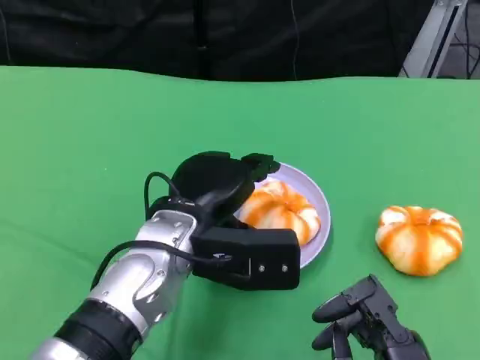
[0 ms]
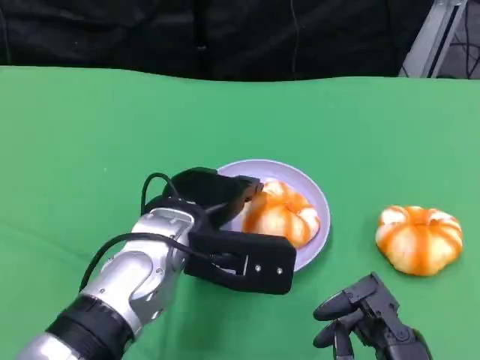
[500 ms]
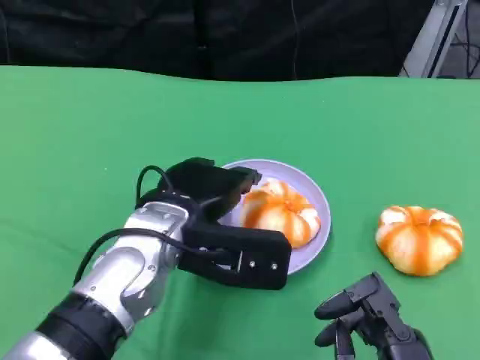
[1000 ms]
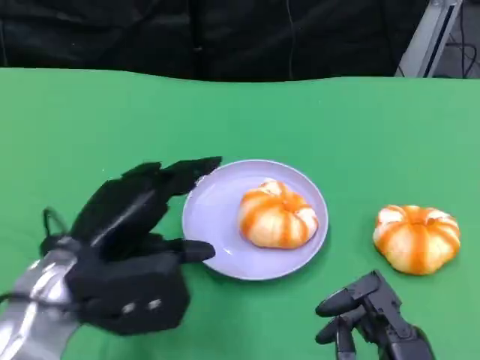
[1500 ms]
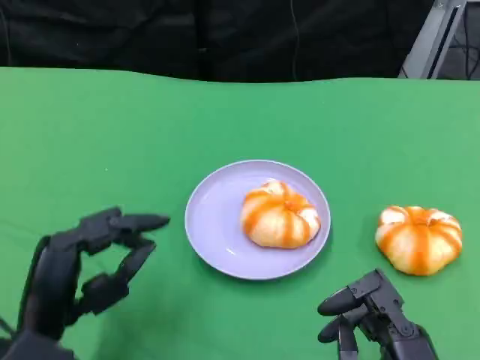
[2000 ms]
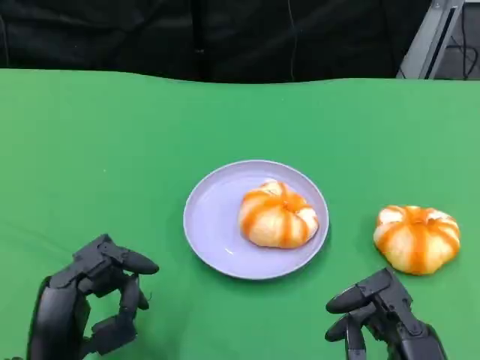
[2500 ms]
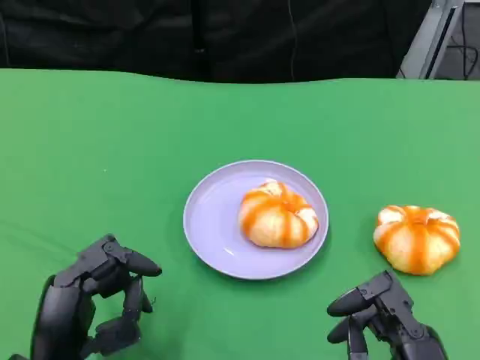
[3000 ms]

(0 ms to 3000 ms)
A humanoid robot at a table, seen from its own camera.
Task of the whole recording: Grasp the bread from the table and place it into the plate.
0 ms - 1500 ms: The left hand is displaced to the left by some 10 cm.
1500 ms - 3000 ms: The left hand moves downward and backward, some 10 cm.

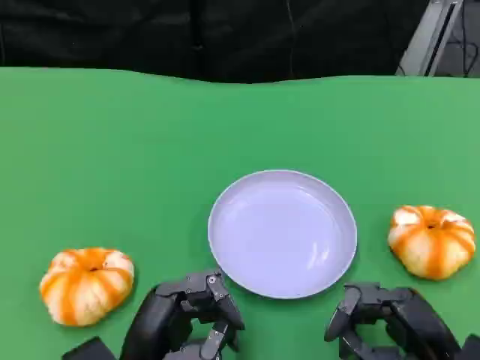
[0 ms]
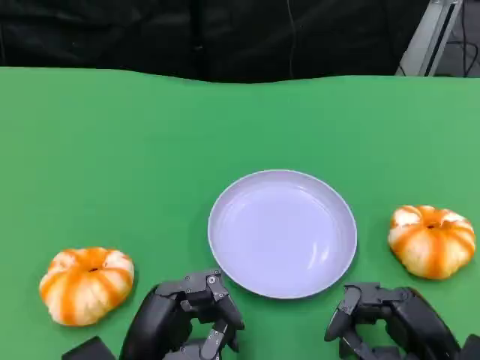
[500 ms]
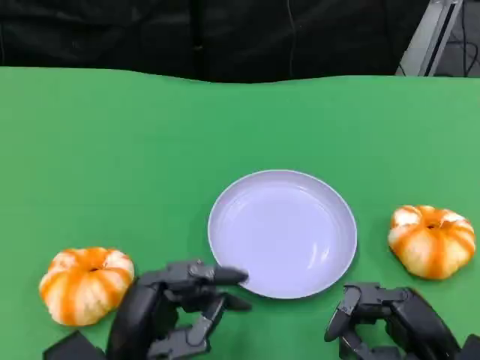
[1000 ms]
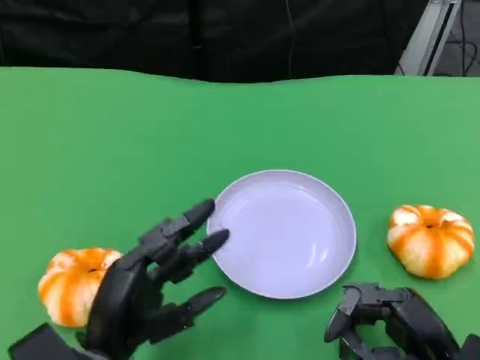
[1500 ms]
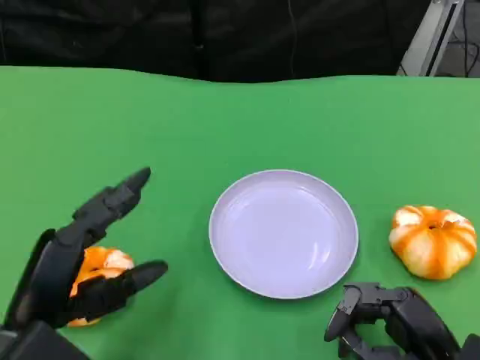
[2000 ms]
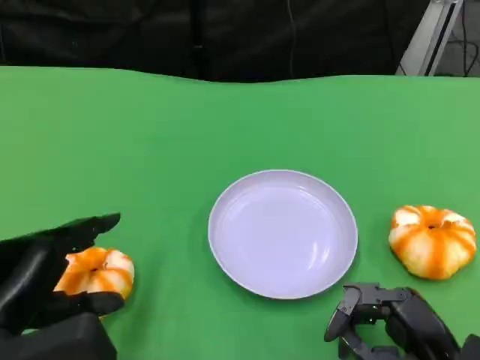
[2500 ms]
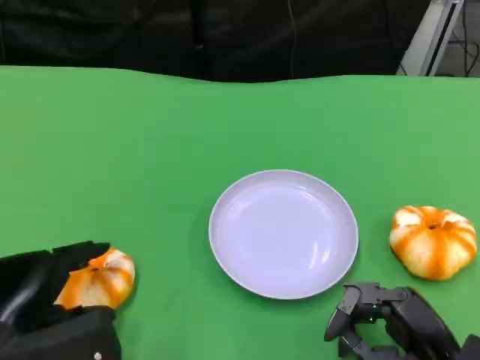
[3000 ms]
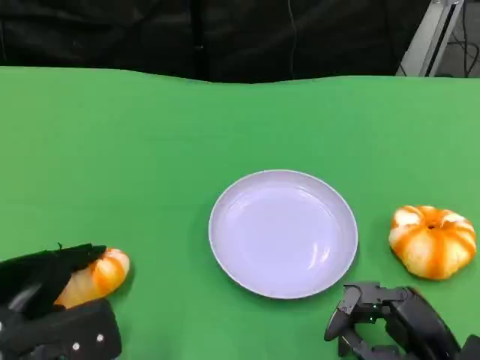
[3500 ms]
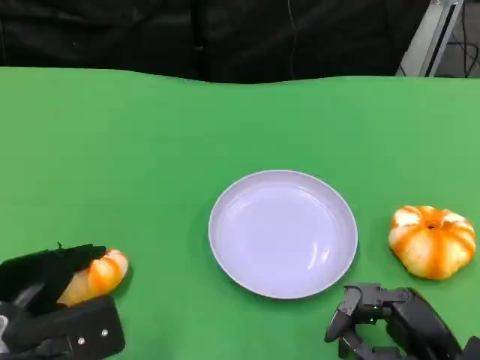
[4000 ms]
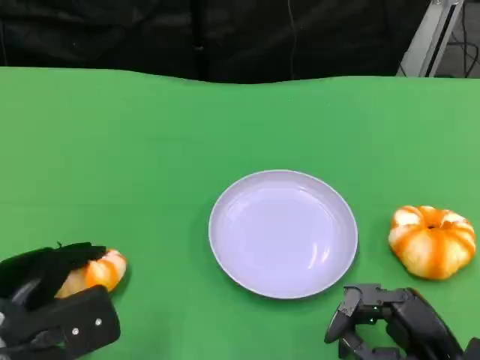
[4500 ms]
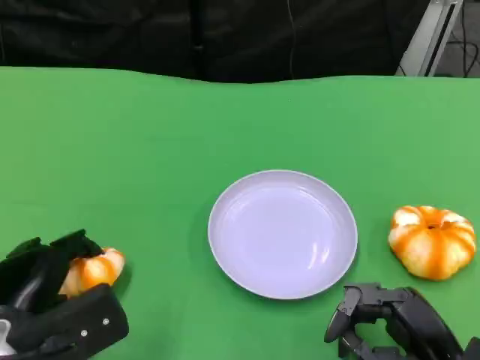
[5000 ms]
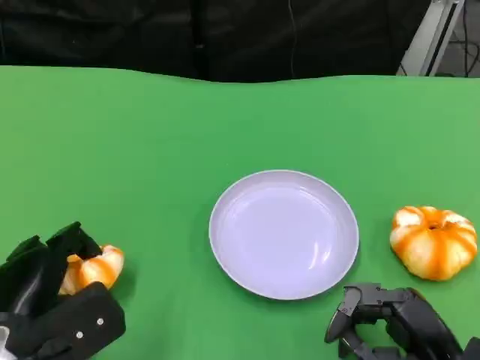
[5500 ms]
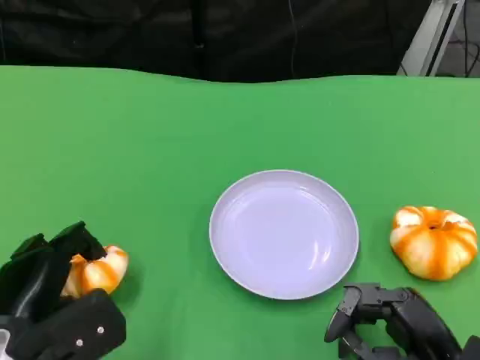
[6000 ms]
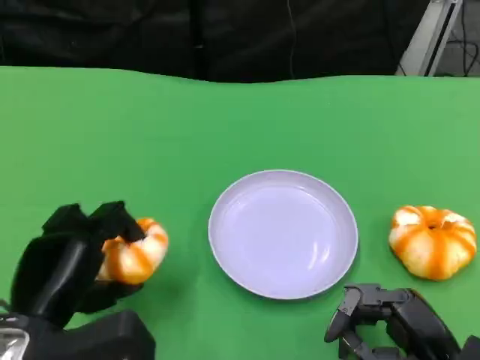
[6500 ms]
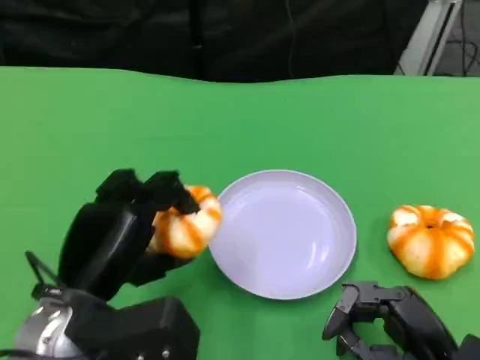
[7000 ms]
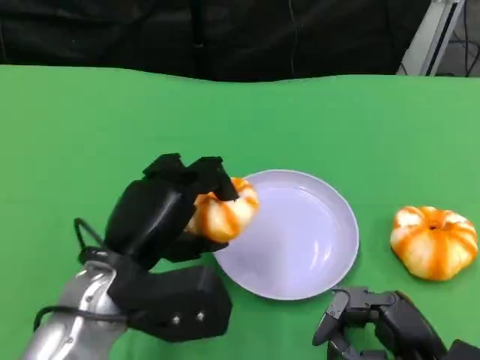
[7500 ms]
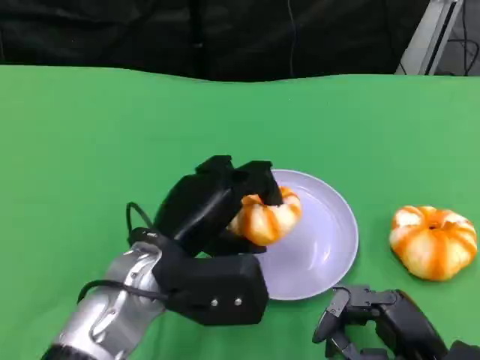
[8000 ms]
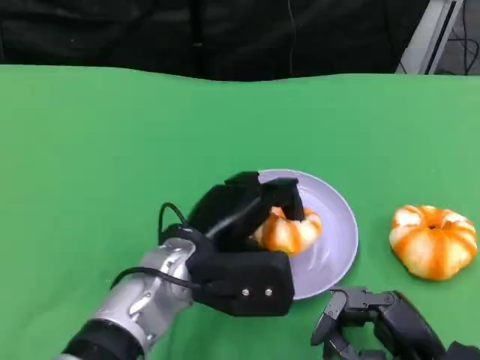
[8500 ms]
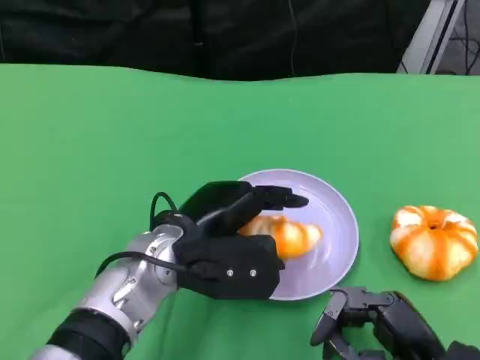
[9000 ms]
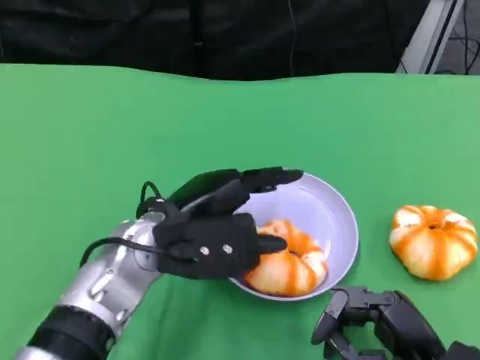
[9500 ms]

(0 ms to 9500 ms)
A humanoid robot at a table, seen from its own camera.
Task of the whole recording: Grasp the bread from the table and place it into the plate.
0 ms - 2000 ms: The left hand shifts approximately 10 cm to the left and upward.
2000 ms - 4000 ms: The left hand ends up about 5 cm from where it was.
4000 ms - 5500 ms: The hands move only a little.
5500 ms - 7500 ms: The left hand moves to the right and upward, about 10 cm.

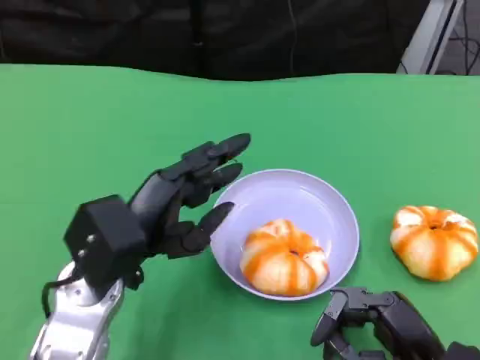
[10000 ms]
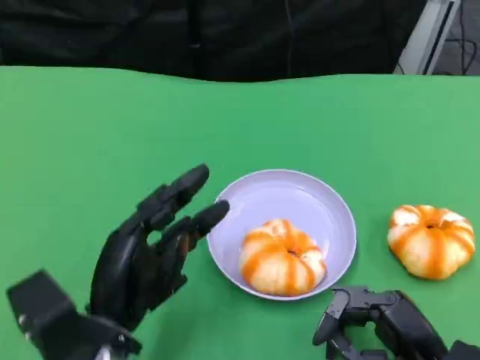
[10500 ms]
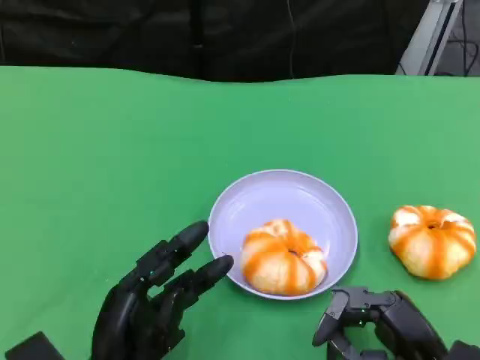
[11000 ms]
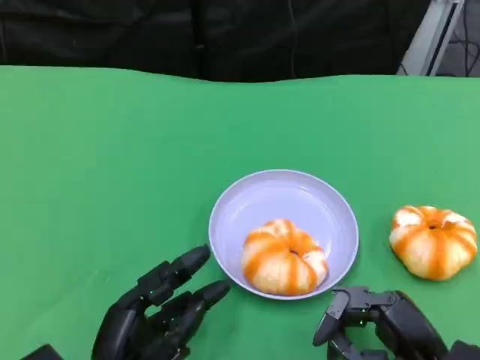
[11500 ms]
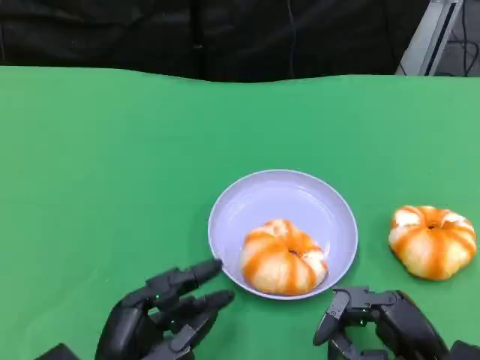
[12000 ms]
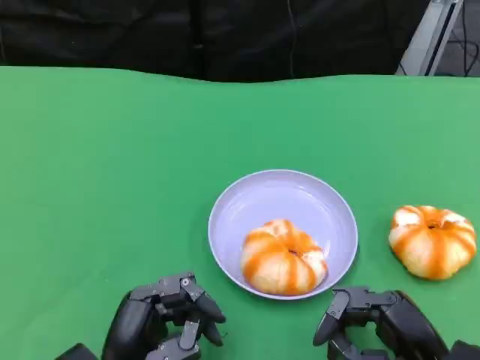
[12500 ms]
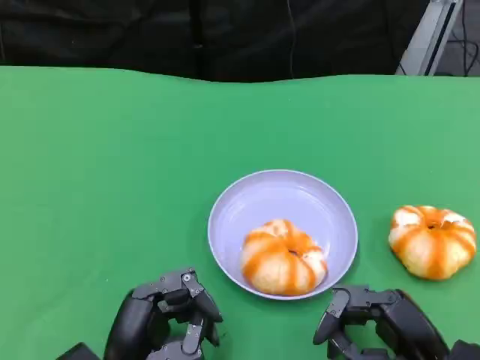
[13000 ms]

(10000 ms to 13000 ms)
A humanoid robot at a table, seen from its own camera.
Task of the whole recording: Grasp the bread from the table and place it into the plate.
10000 ms - 11500 ms: The left hand moves backward and downward, roughly 15 cm.
11500 ms - 13000 ms: The hands move only a little.

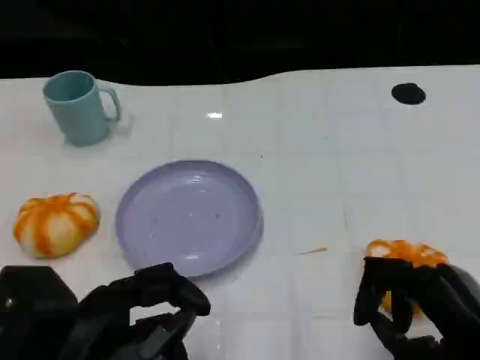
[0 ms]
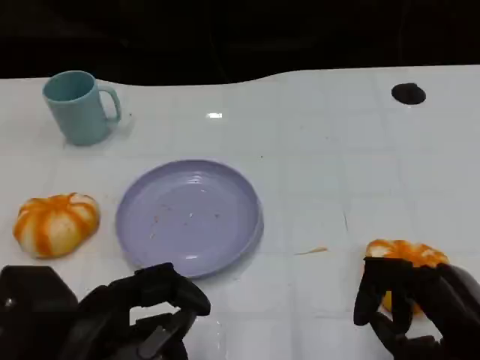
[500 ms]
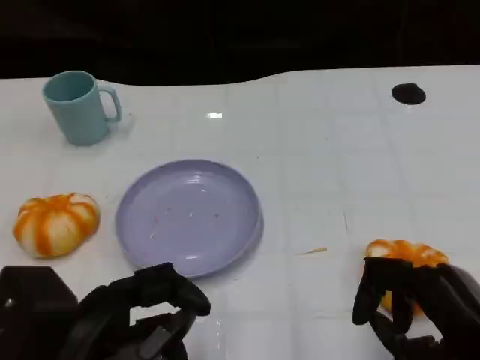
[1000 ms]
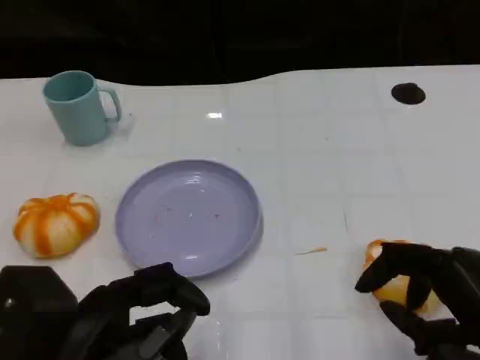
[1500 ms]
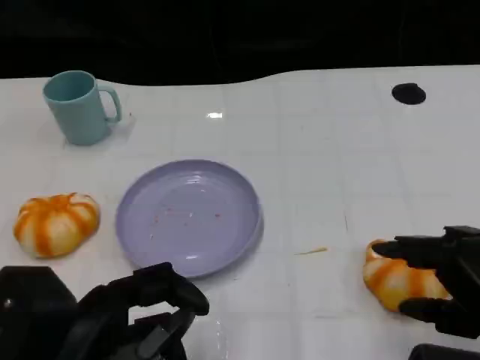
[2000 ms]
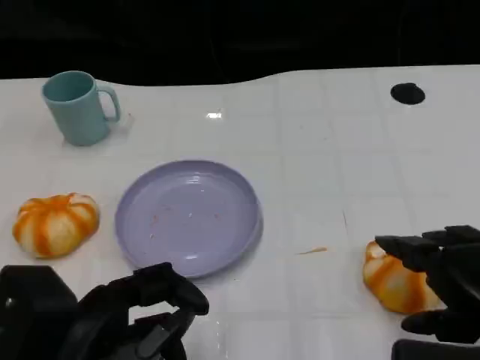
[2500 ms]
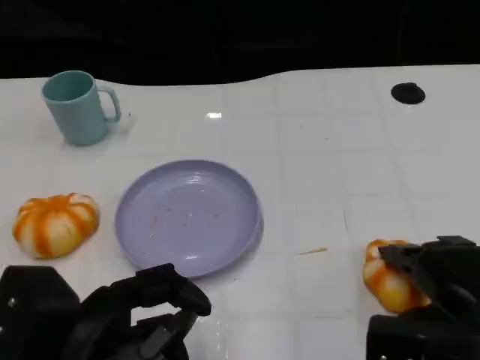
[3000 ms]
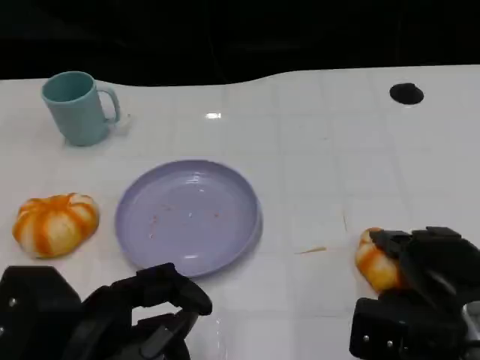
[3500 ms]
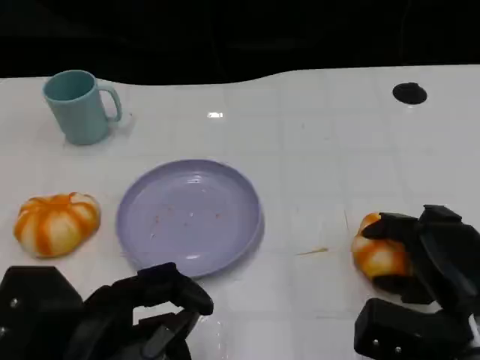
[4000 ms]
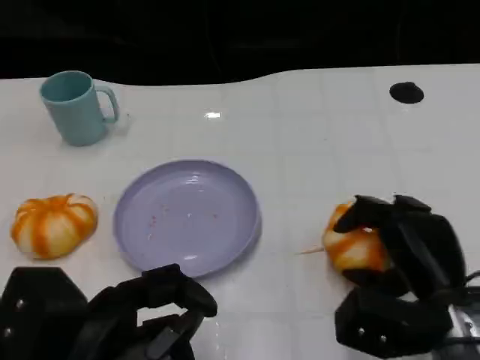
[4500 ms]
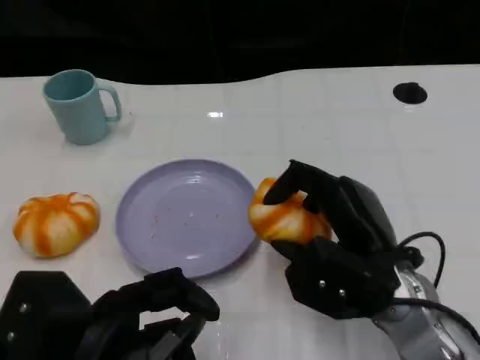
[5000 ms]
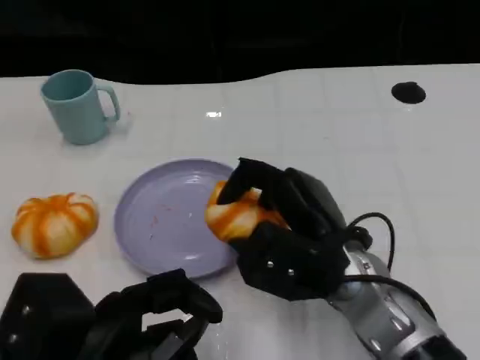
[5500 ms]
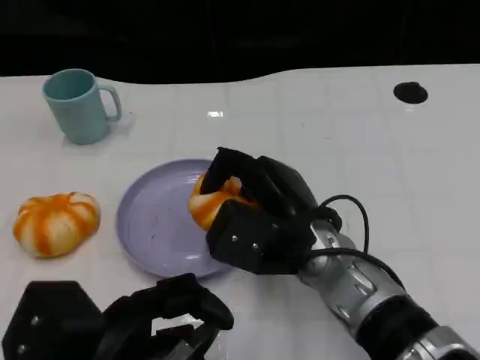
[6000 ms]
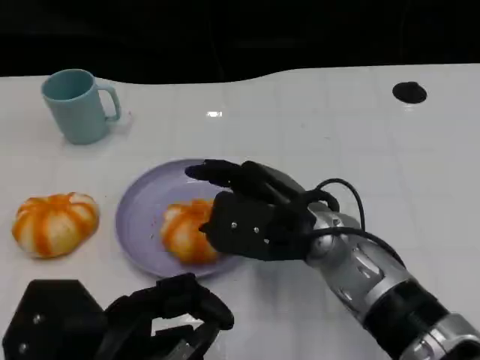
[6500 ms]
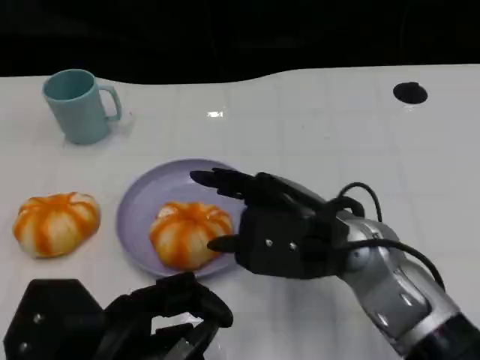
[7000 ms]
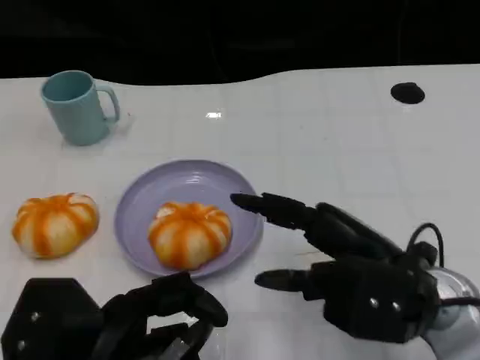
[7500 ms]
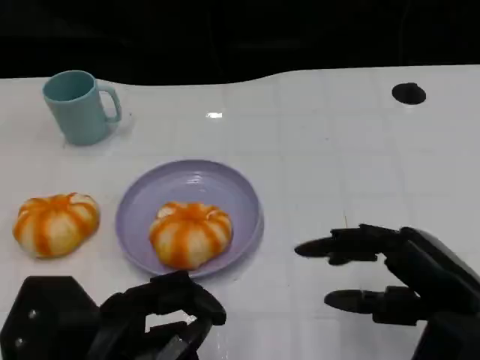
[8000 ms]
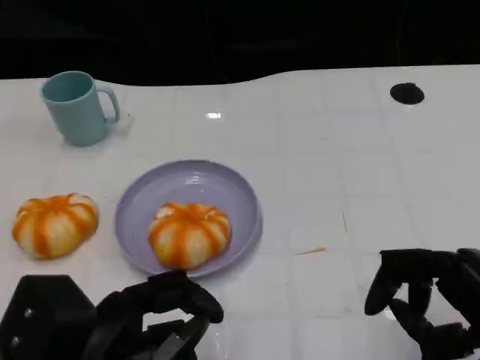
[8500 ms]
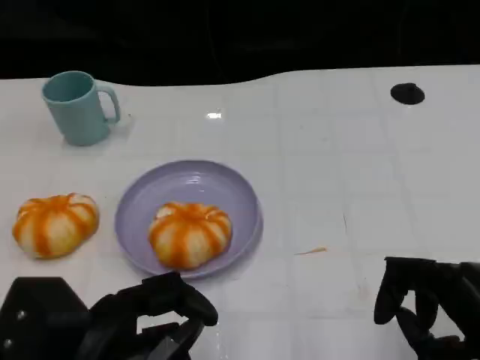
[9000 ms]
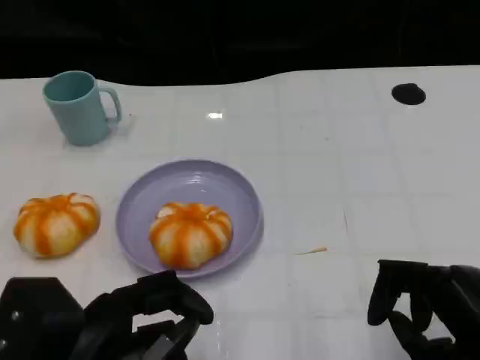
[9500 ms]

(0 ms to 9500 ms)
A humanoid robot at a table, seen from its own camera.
Task of the whole recording: Grasp the bread from the table and place it into the plate.
0 ms - 2000 ms: The right hand moves roughly 5 cm.
2000 ms - 4000 ms: The right hand shifts about 10 cm downward and forward.
4000 ms - 5500 ms: The right hand moves to the left and upward, some 15 cm.
5500 ms - 7500 ms: The right hand heads to the right, covering about 10 cm.
7500 ms - 9500 ms: The right hand shifts roughly 10 cm backward and to the right.
